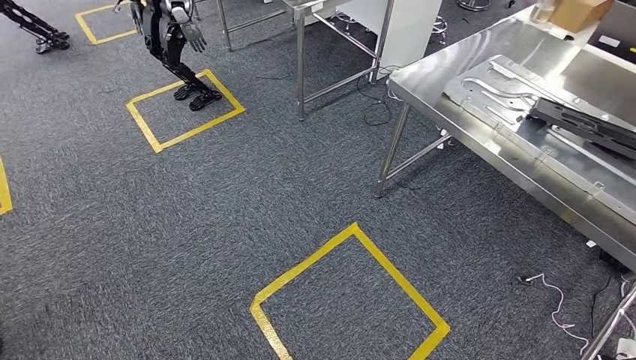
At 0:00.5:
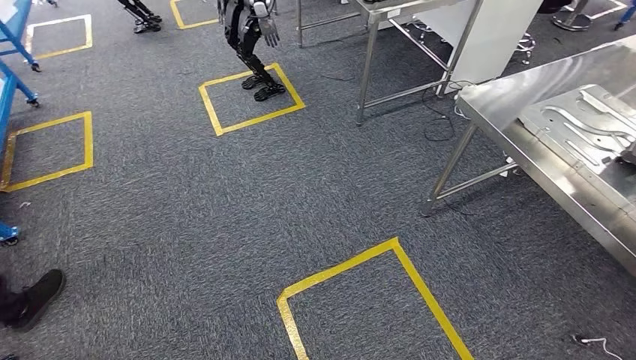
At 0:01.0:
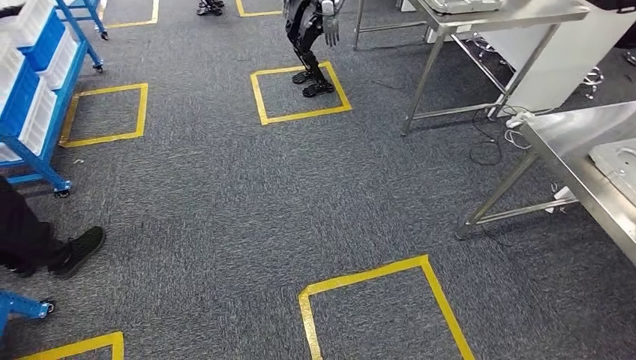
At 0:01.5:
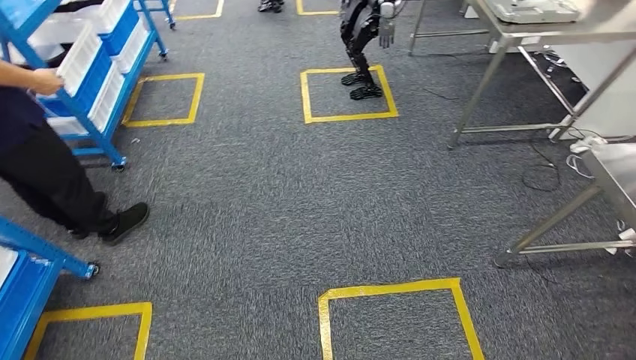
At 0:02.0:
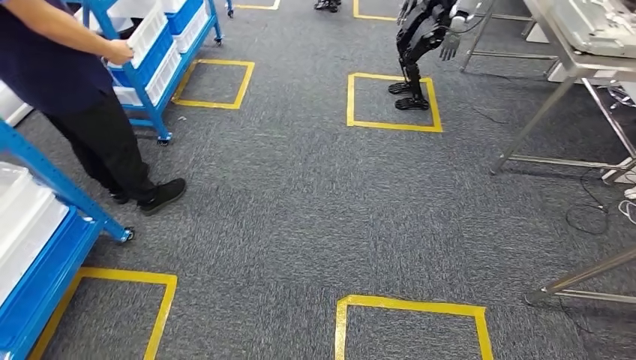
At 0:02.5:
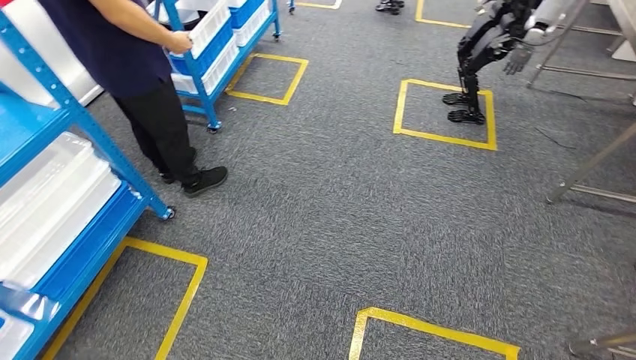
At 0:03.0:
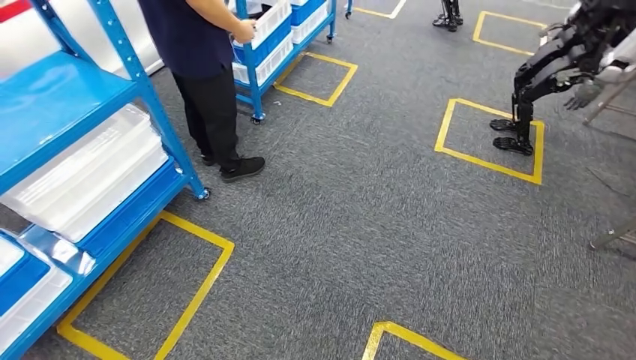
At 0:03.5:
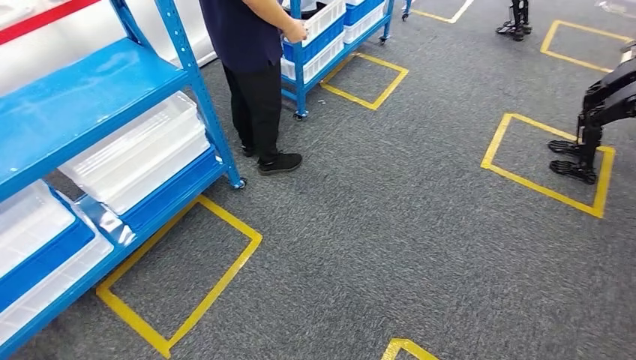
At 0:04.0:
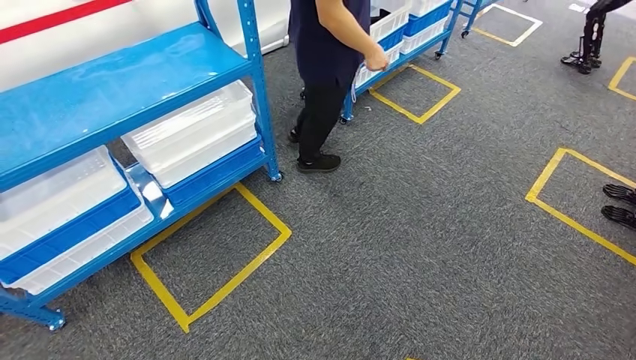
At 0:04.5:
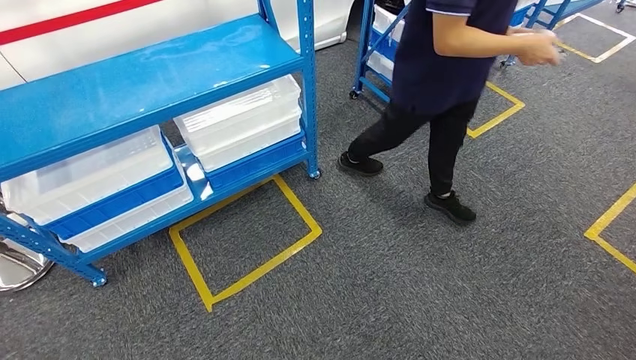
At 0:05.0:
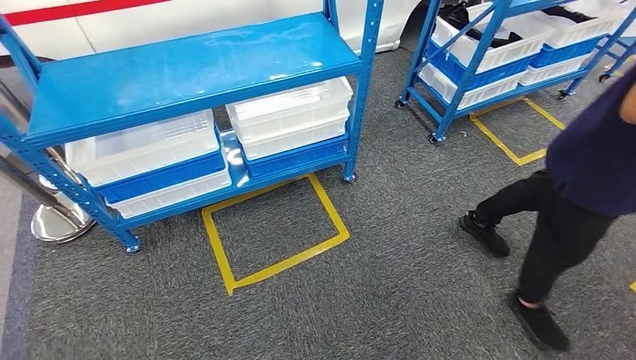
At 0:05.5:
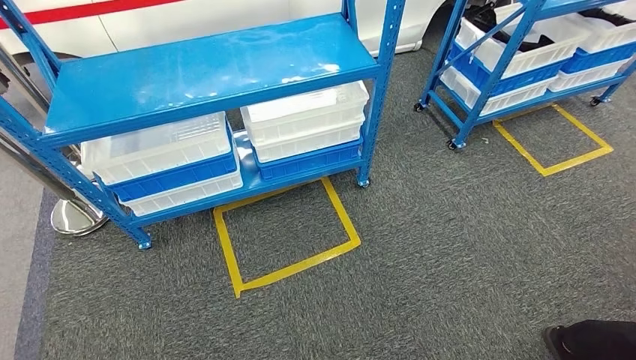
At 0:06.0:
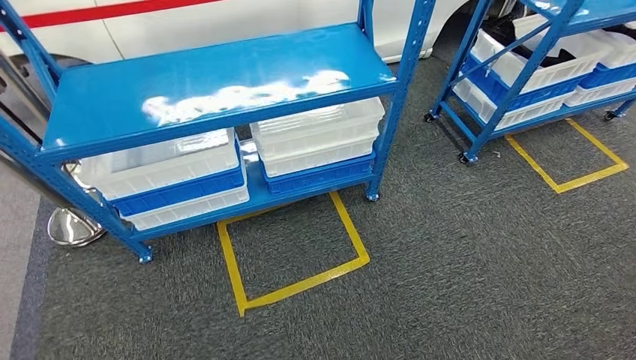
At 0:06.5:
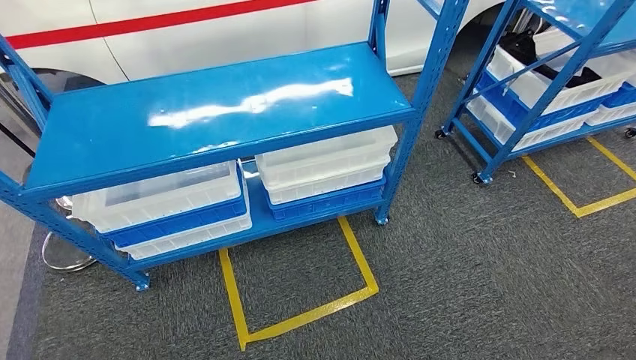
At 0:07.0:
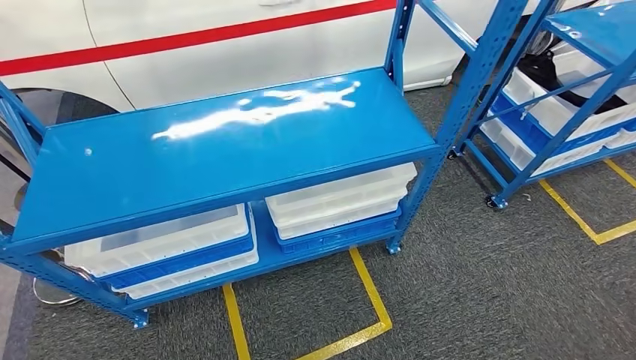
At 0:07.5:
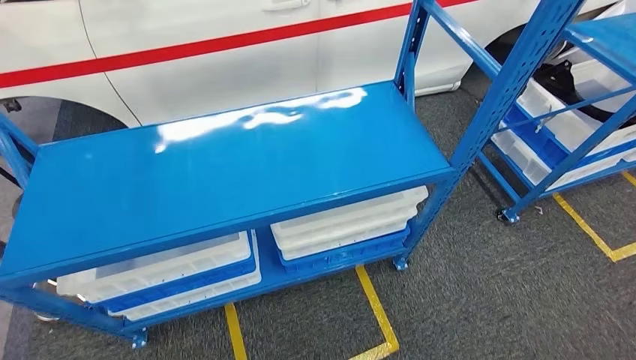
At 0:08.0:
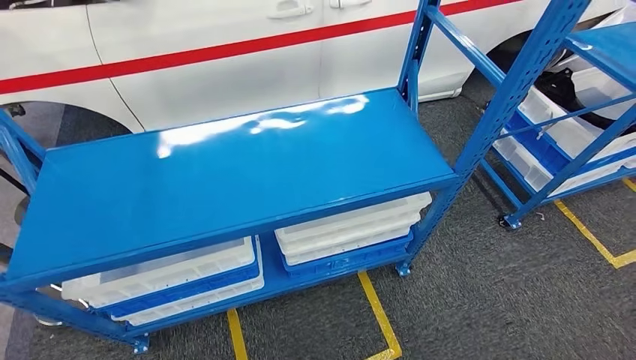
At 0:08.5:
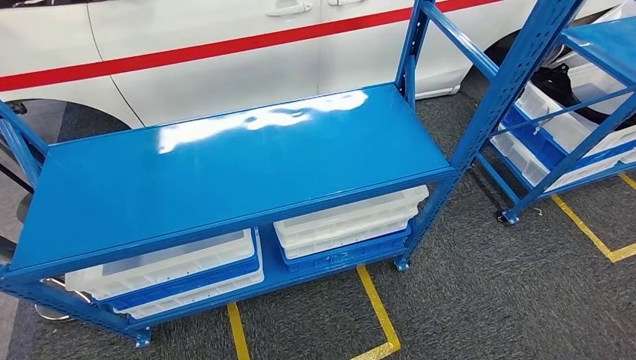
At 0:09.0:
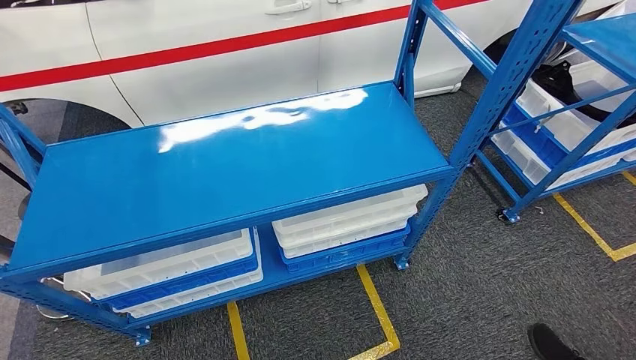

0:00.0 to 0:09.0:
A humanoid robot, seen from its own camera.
Step, 0:00.0 to 0:09.0: Move to the initial position of the shelf.
